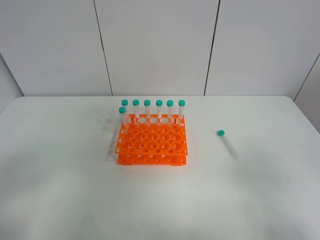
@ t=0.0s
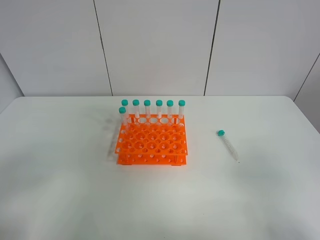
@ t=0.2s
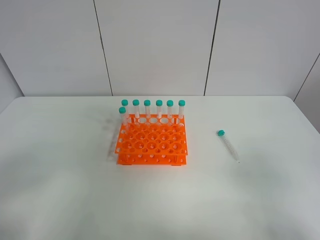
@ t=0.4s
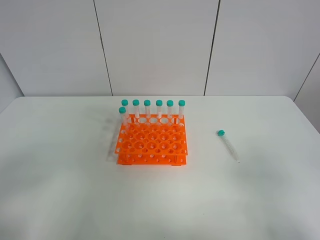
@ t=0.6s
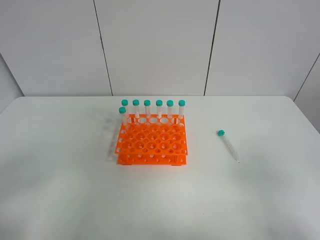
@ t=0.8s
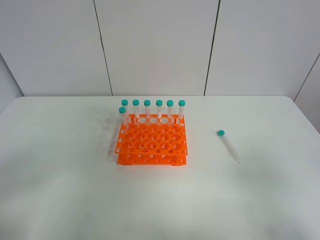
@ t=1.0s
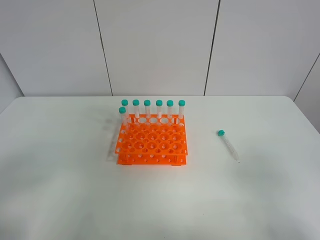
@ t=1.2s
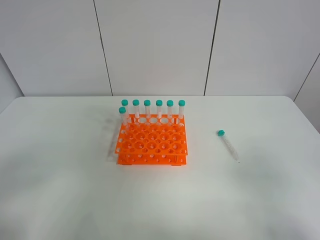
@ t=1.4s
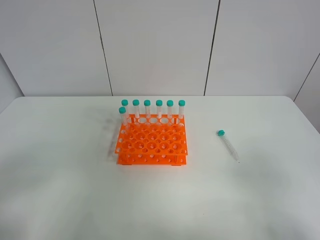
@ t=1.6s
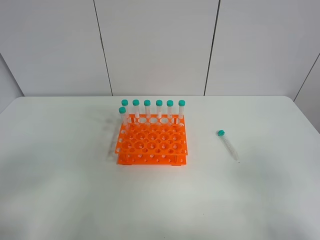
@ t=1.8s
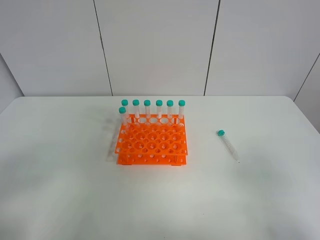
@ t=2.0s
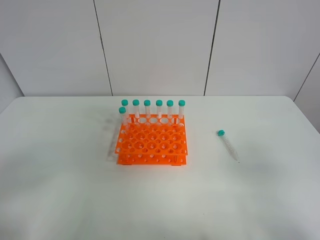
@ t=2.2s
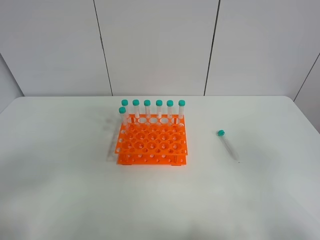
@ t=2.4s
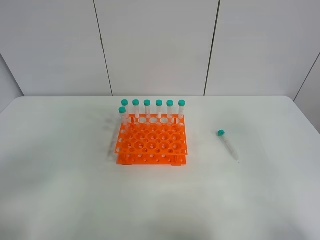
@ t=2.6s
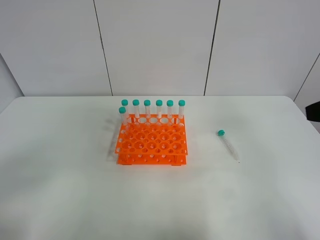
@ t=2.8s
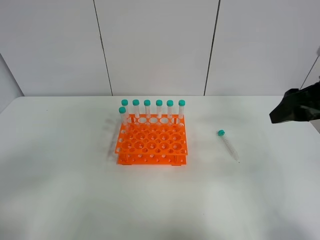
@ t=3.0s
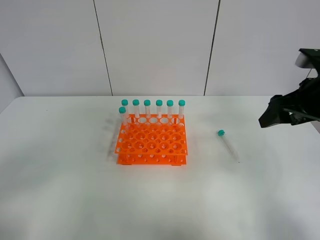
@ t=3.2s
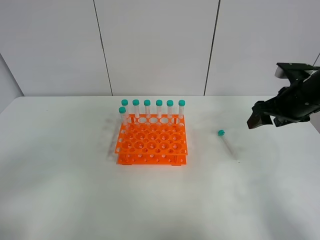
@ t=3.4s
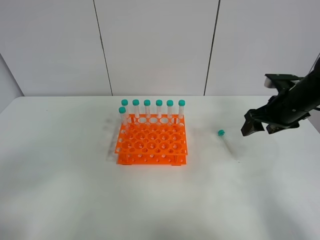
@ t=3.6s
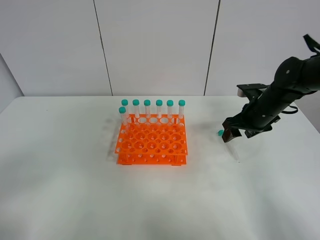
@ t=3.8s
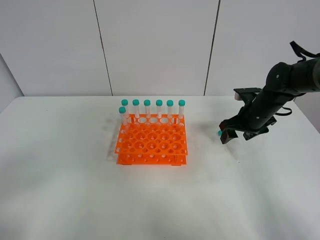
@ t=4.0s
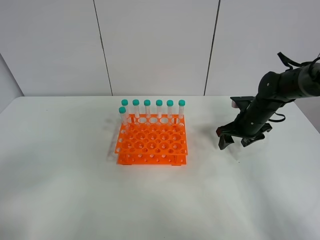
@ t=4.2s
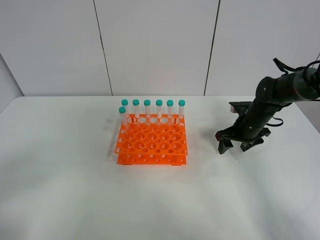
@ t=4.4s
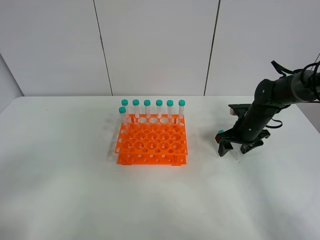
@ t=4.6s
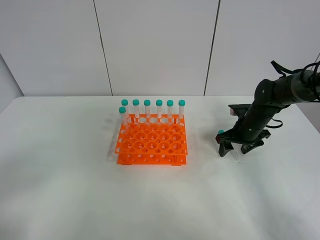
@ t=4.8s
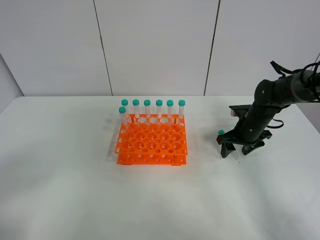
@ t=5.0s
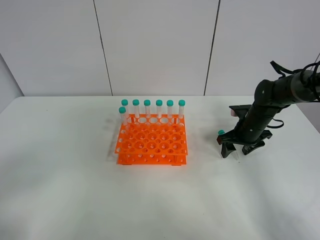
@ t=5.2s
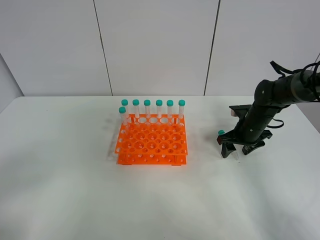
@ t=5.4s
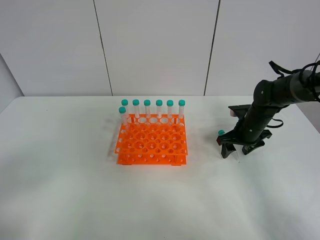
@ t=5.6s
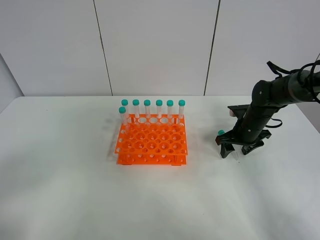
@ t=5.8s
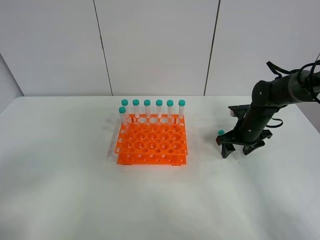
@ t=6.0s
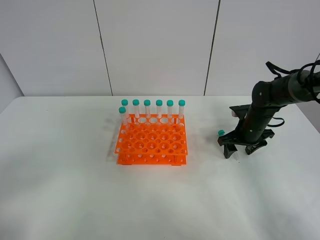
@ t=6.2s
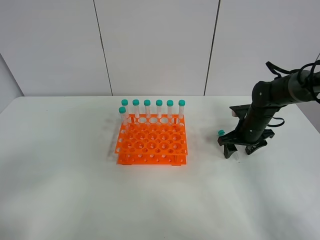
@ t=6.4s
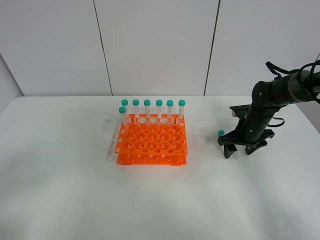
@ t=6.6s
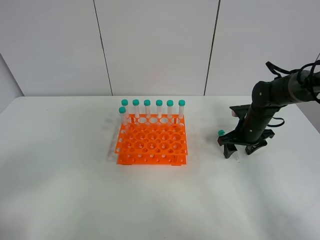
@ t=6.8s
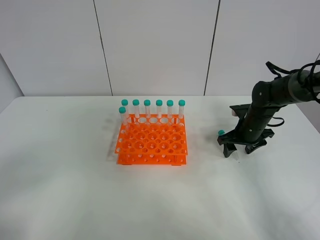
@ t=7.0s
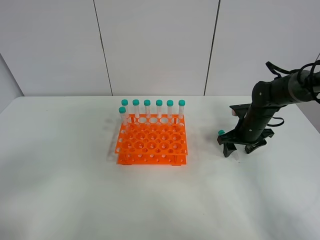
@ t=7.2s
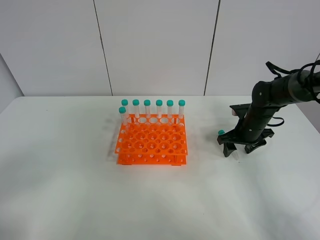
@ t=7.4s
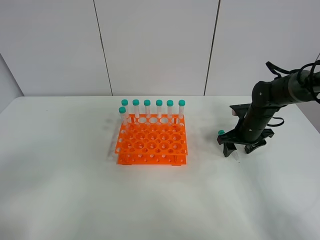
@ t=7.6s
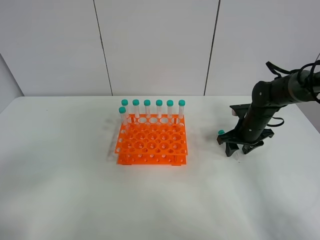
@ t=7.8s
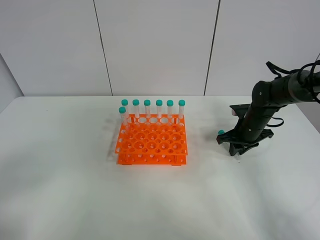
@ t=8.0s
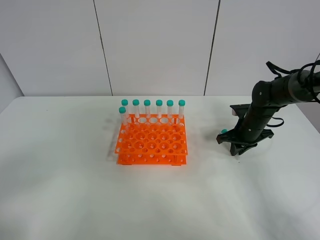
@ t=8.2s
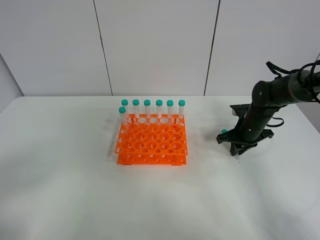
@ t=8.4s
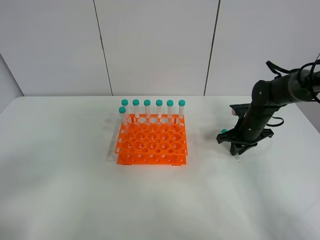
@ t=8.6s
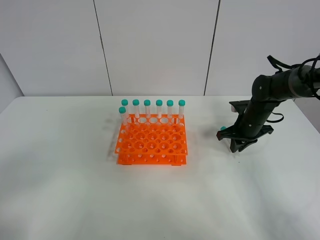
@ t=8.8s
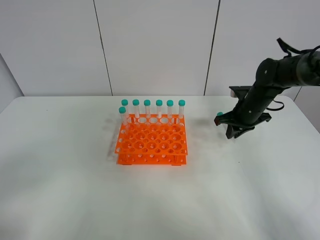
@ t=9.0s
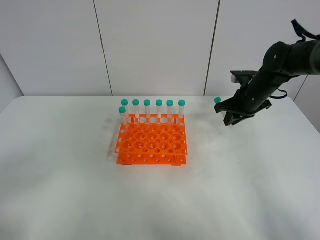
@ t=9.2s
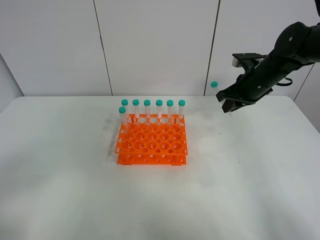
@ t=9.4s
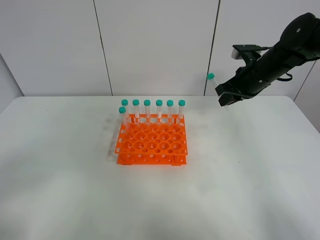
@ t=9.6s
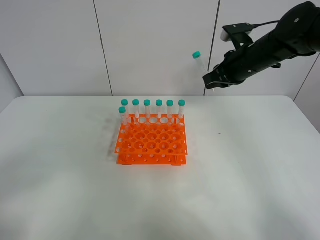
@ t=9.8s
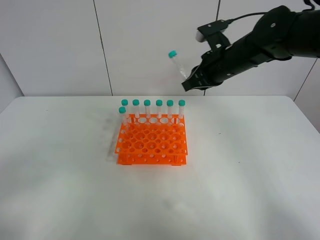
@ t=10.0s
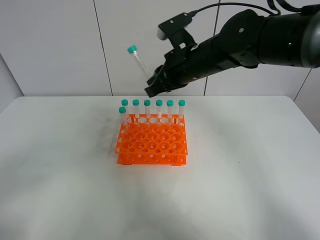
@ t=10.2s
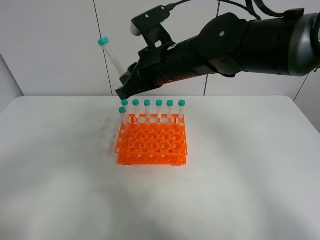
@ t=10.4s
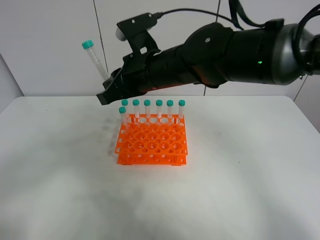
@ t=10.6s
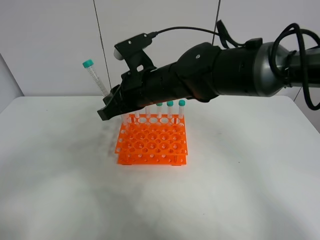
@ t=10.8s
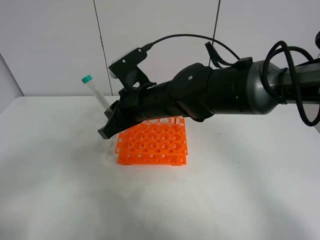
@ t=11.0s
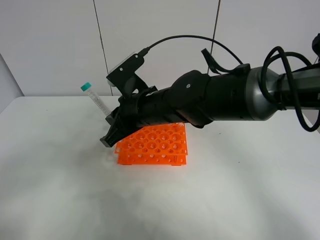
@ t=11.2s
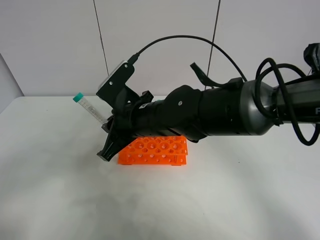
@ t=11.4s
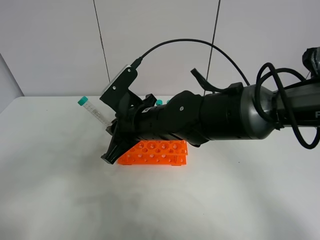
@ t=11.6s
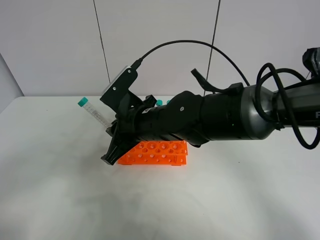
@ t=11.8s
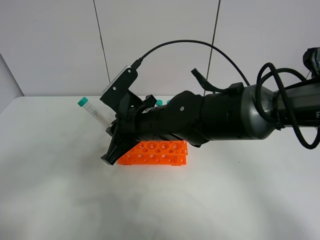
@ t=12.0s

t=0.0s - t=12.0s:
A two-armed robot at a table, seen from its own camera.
Task of the whole recording: Put the test tube on the table back onto the test tube rack.
Step, t=0.0s - t=9.2s: Pick up the test tube with the right gripper.
t=0.0s - t=1.6s: Neither gripper changes place.
t=1.6s - t=3.0s: The right gripper travels forward by roughly 25 cm.
t=3.0s - t=4.4s: The right gripper goes about 25 cm downward and forward.
t=4.4s - t=6.0s: Both grippers stay about where they are.
t=6.0s - t=7.6s: Both grippers stay put.
t=7.6s - t=9.0s: The right gripper goes about 5 cm upward, and closes its fingers.
t=9.0s - t=10.4s: The right gripper is displaced to the left, upward and backward by about 30 cm.
t=10.4s - t=12.0s: The right gripper is displaced downward by about 10 cm.

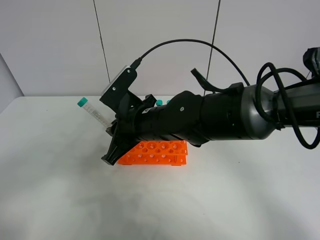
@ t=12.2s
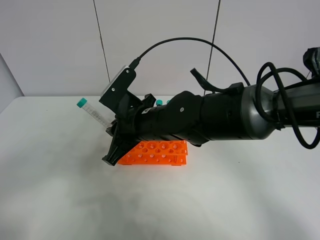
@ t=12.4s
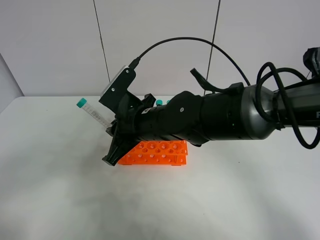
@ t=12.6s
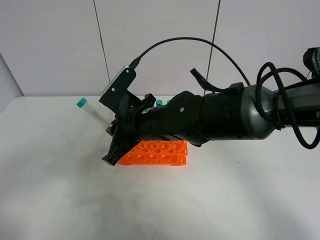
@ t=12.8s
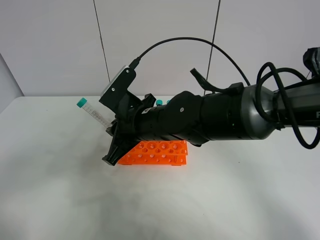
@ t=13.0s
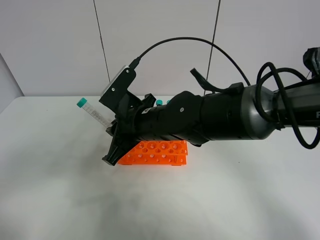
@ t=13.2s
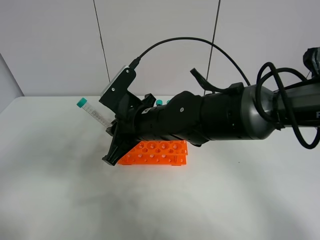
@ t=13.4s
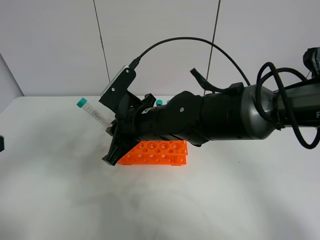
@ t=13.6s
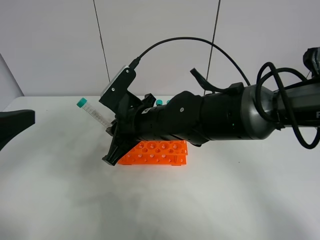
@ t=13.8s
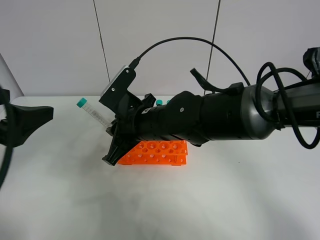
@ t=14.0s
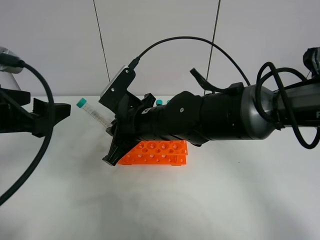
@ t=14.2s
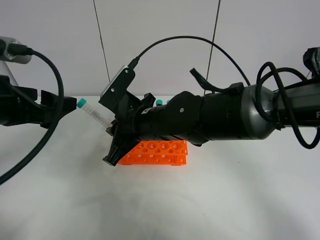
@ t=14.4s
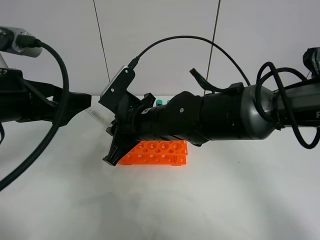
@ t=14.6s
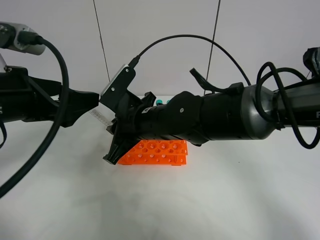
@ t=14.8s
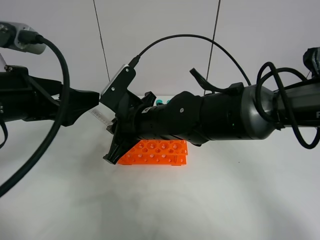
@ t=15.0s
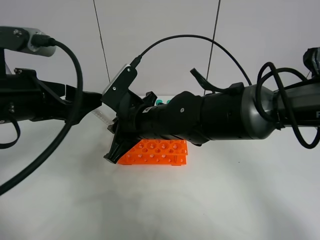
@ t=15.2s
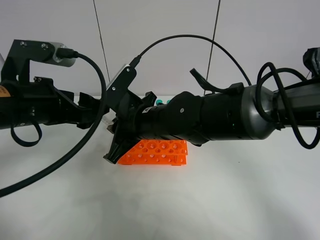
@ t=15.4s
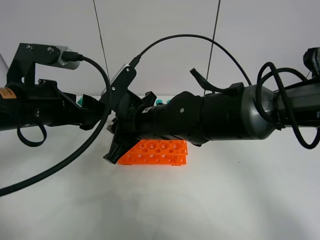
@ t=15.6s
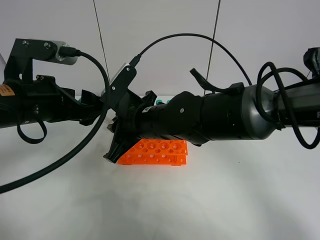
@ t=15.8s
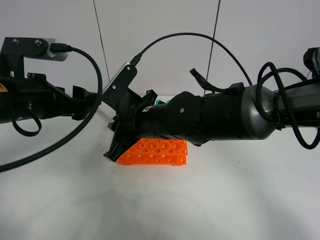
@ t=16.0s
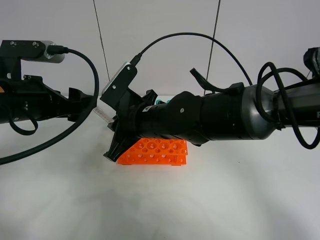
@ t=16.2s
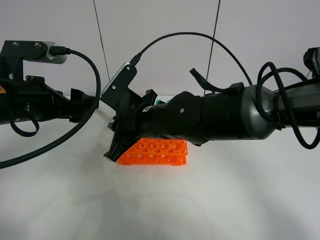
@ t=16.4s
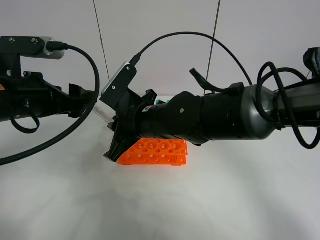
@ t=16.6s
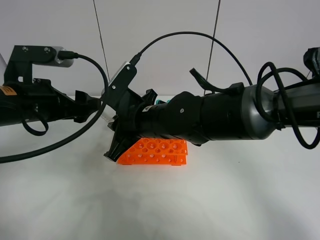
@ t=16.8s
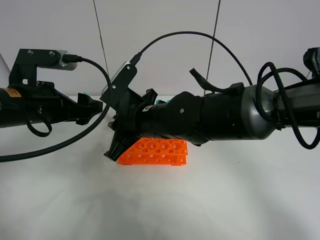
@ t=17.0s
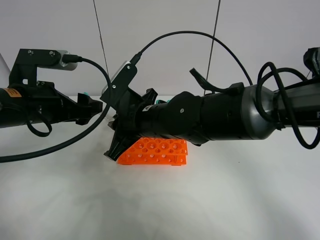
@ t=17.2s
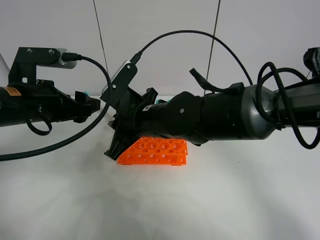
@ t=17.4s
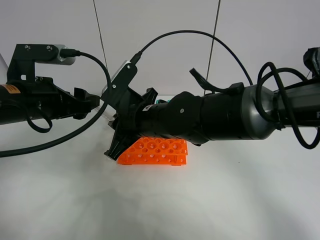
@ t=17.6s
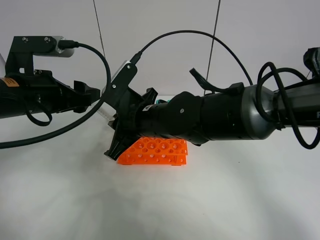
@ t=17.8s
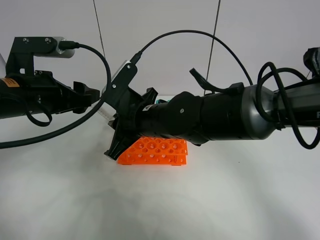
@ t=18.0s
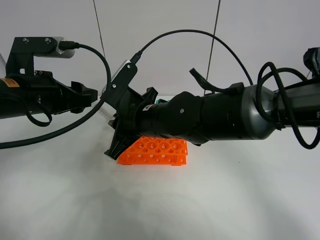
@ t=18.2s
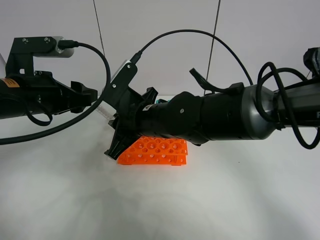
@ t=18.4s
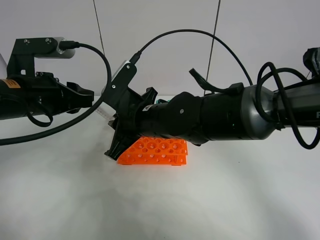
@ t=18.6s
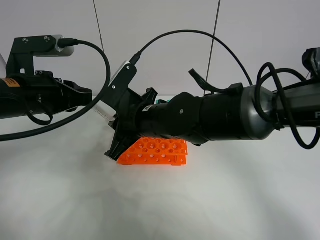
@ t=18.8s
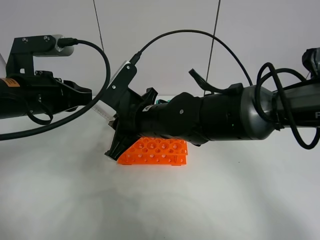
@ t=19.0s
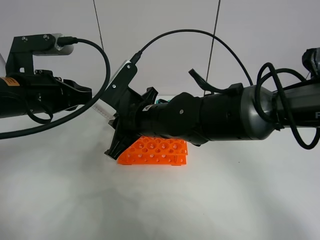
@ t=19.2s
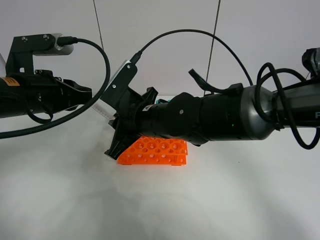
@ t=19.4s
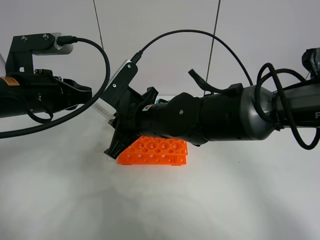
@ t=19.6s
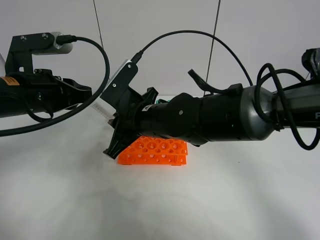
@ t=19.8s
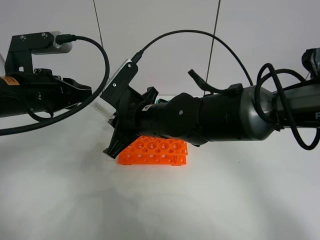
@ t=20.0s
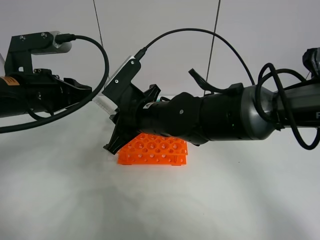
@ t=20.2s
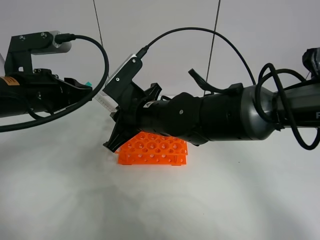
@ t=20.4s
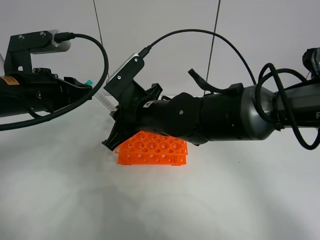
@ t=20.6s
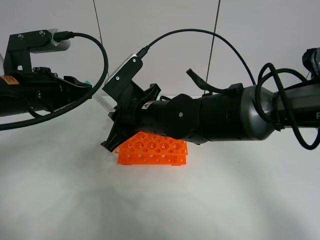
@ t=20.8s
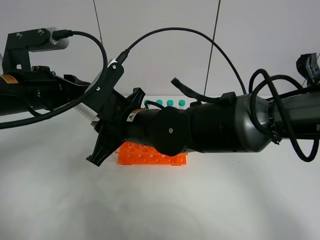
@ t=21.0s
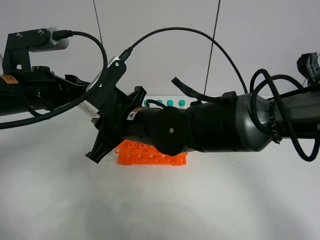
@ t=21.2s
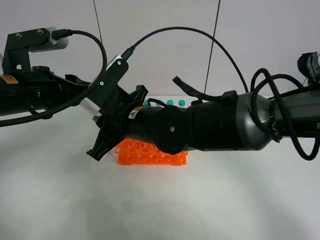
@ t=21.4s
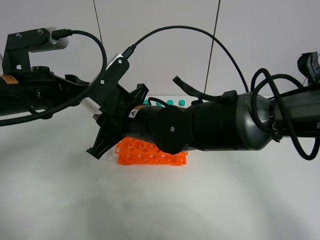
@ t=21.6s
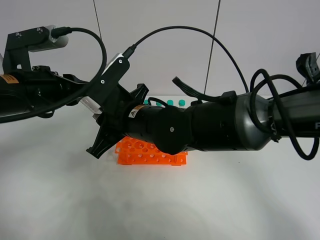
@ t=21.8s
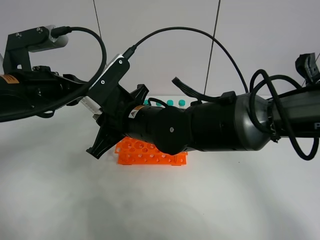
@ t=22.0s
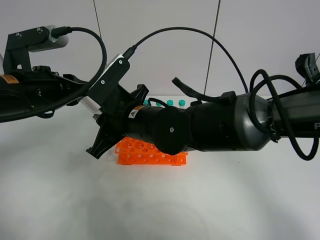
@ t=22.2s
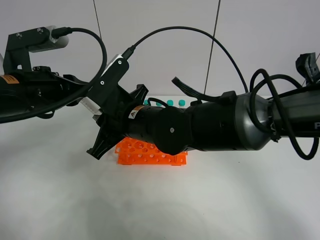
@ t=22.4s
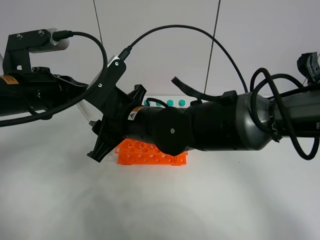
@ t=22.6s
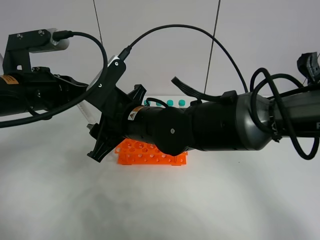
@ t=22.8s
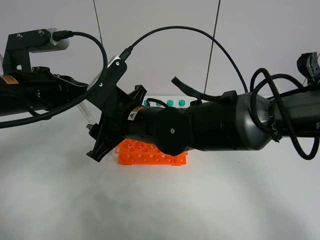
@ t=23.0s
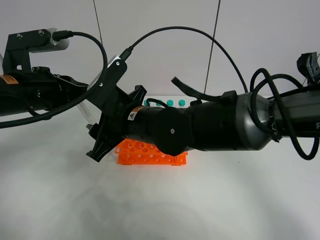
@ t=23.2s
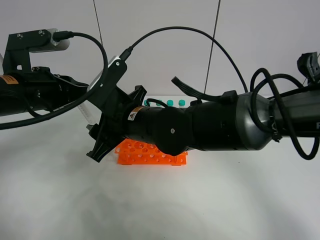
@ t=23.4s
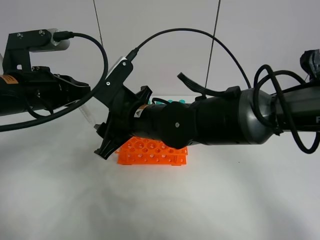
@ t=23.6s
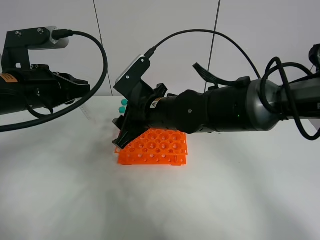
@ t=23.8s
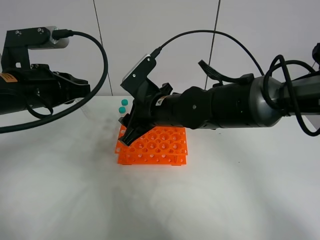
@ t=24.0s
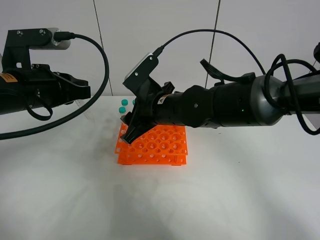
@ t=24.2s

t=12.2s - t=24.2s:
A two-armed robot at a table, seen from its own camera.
Task of the whole recording: Put the test tube on the table back onto the test tube rack.
t=12.2s - t=13.8s: The left gripper moves forward, approximately 15 cm.
t=13.8s - t=15.2s: The left gripper heads forward and to the right, covering approximately 10 cm.
t=15.2s - t=18.2s: There are only small adjustments of the grippers.
t=18.2s - t=19.8s: The left gripper closes its fingers.
t=19.8s - t=21.2s: The grippers stay close to where they were, moving slightly.
t=21.2s - t=22.6s: The left gripper closes up. Meanwhile the right gripper opens its fingers.
t=22.6s - t=24.2s: The right gripper goes approximately 5 cm to the right.
